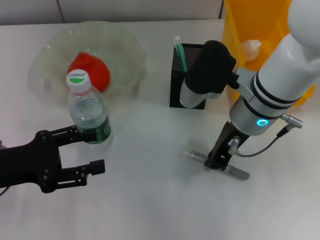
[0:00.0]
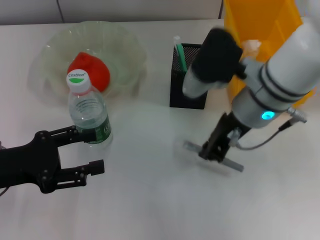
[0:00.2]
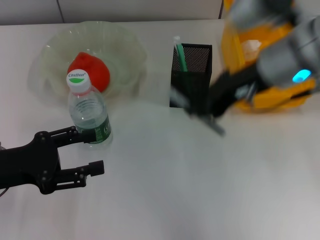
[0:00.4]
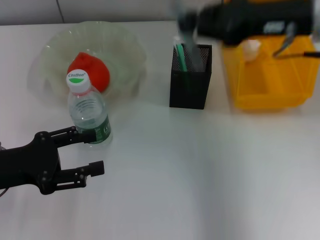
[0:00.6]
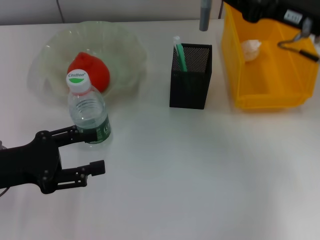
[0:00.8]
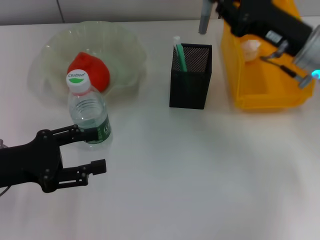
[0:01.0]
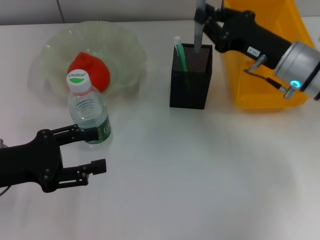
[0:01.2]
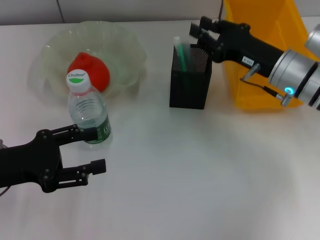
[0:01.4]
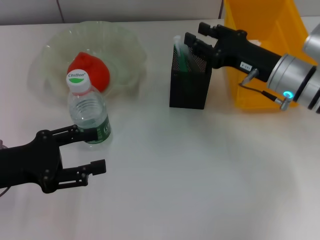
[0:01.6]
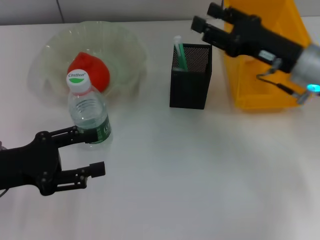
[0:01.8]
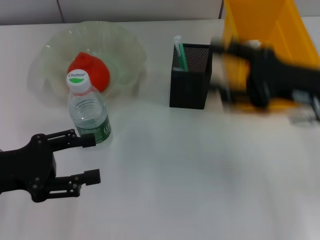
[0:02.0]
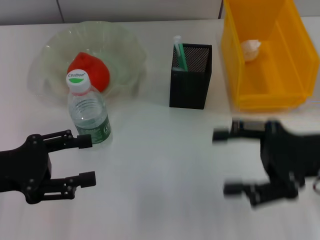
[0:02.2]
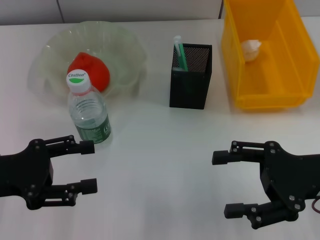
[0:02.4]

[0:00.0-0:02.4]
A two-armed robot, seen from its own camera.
Step, 0:00.4 to 0:01.6: Place the gray glue into the pen holder with the right hand.
0:00.0 to 0:01.2: The right gripper travels to the right by approximately 10 cm, and reaches some 10 cm upward, then returns.
0:01.2 to 0:02.4: The right gripper moves backward, roughly 15 cm, and opens its fingers.
